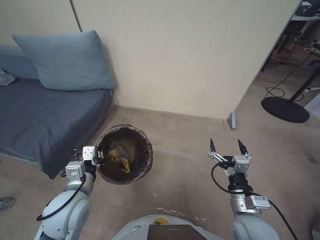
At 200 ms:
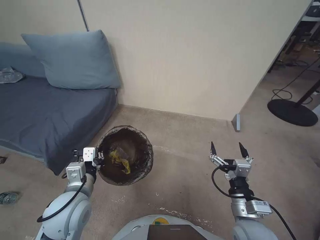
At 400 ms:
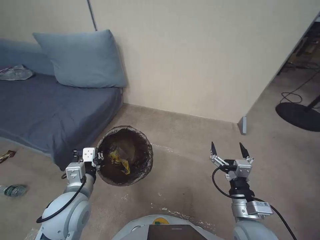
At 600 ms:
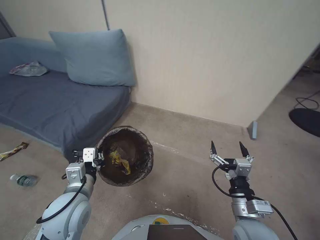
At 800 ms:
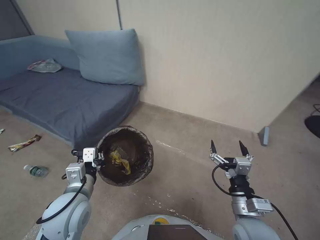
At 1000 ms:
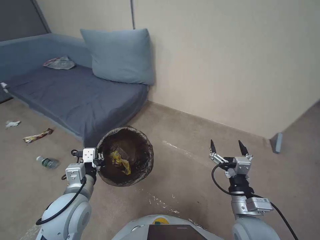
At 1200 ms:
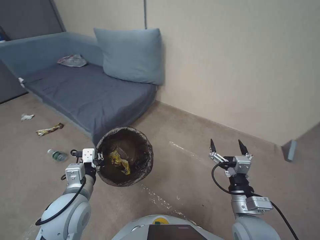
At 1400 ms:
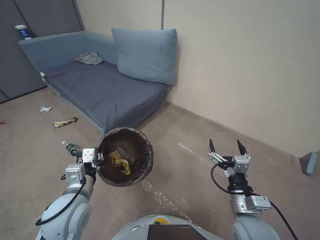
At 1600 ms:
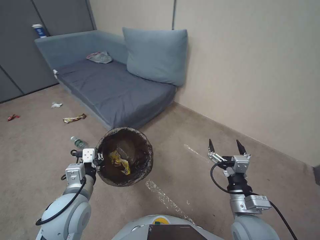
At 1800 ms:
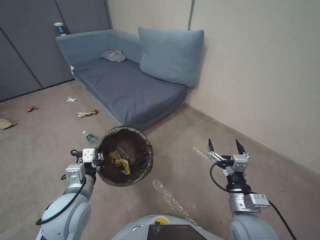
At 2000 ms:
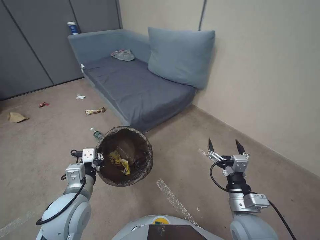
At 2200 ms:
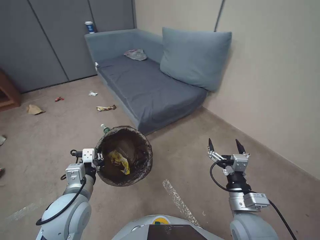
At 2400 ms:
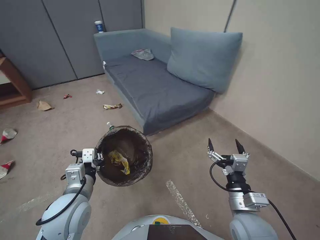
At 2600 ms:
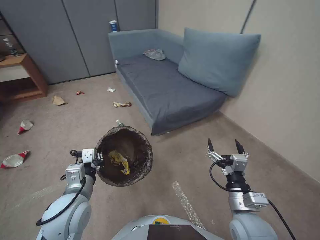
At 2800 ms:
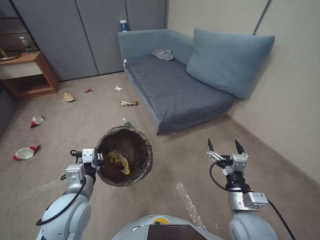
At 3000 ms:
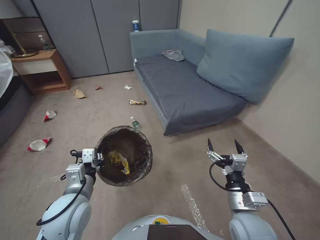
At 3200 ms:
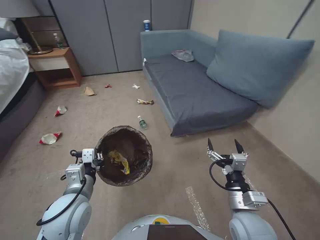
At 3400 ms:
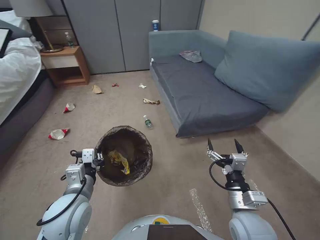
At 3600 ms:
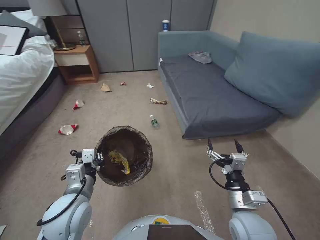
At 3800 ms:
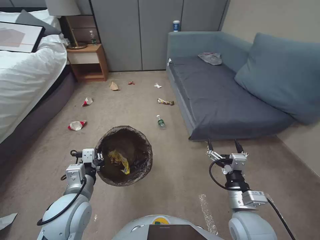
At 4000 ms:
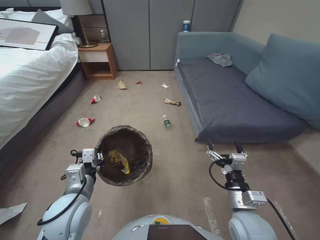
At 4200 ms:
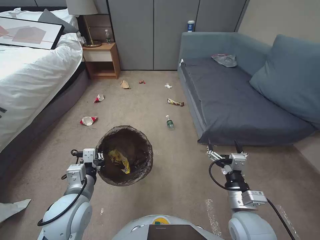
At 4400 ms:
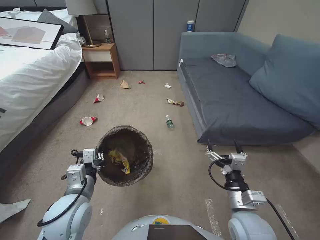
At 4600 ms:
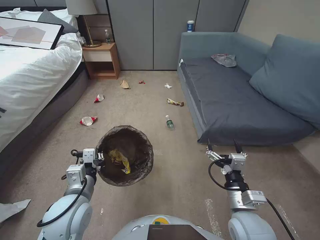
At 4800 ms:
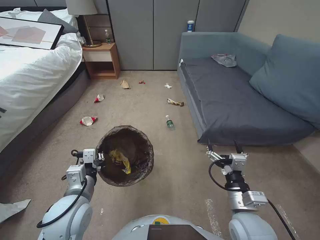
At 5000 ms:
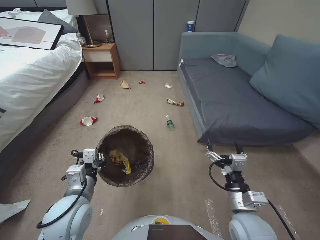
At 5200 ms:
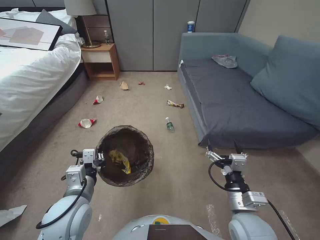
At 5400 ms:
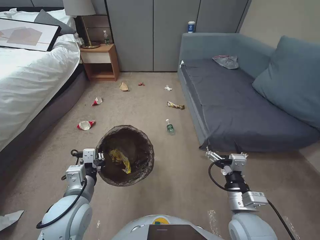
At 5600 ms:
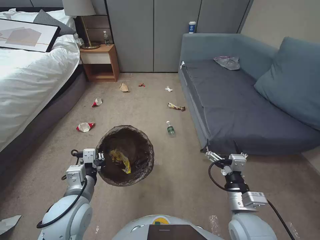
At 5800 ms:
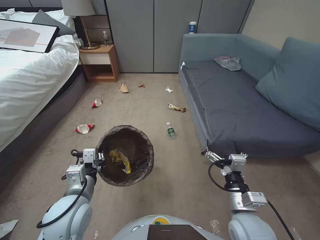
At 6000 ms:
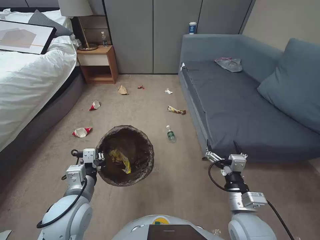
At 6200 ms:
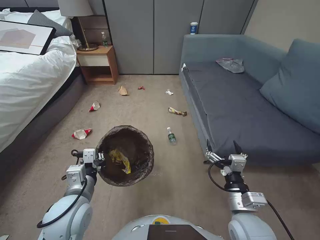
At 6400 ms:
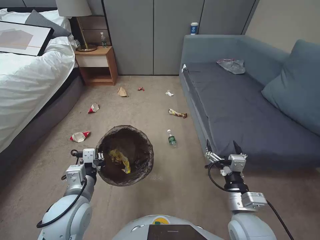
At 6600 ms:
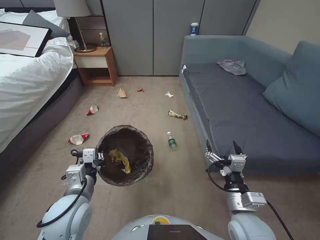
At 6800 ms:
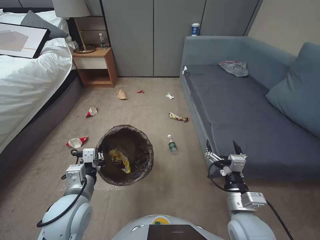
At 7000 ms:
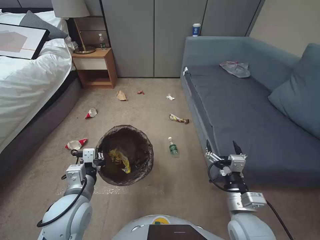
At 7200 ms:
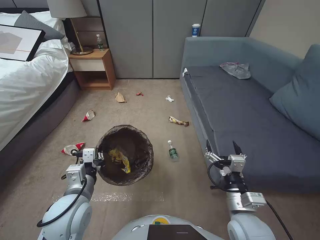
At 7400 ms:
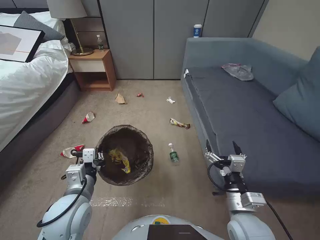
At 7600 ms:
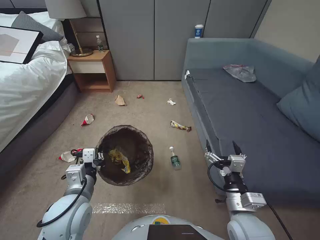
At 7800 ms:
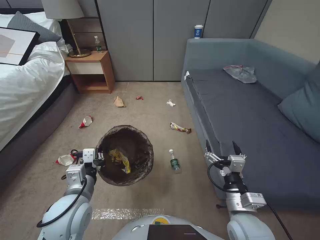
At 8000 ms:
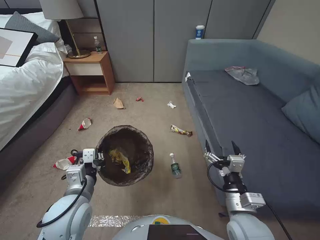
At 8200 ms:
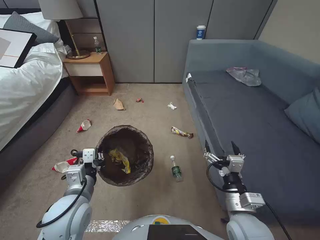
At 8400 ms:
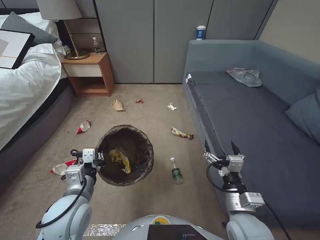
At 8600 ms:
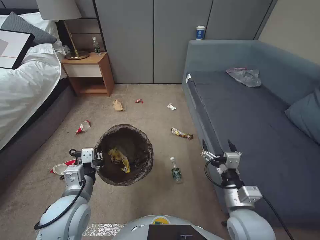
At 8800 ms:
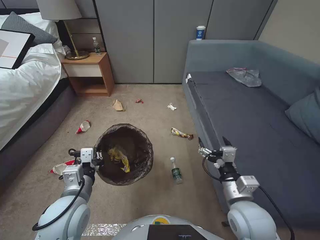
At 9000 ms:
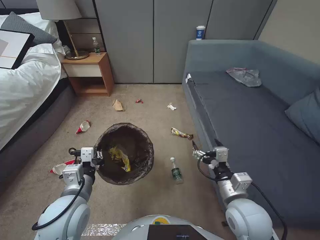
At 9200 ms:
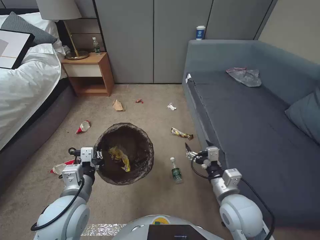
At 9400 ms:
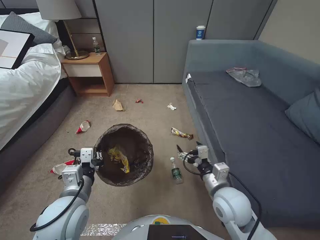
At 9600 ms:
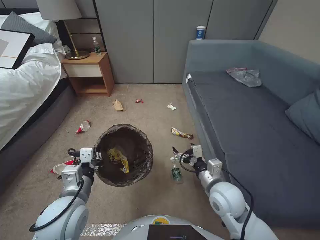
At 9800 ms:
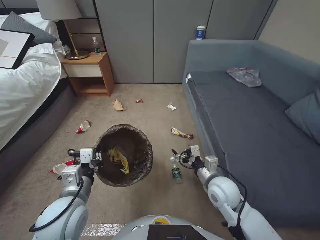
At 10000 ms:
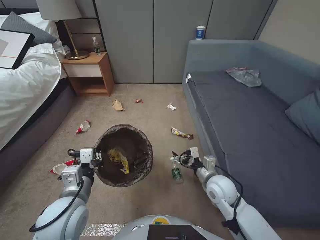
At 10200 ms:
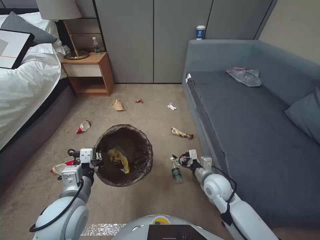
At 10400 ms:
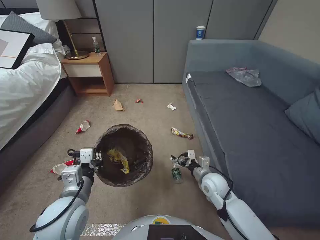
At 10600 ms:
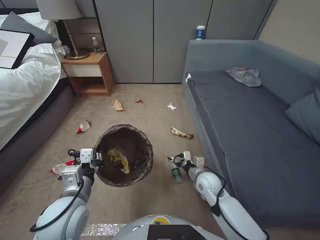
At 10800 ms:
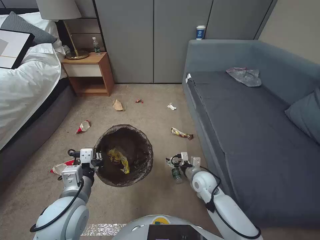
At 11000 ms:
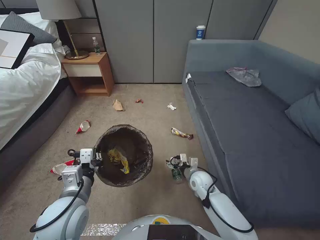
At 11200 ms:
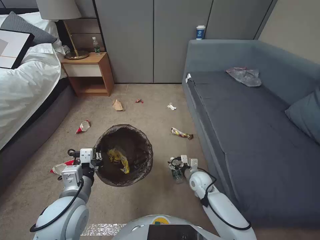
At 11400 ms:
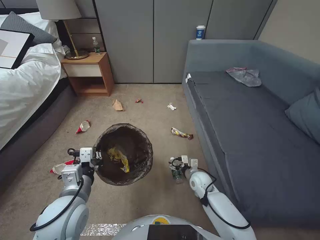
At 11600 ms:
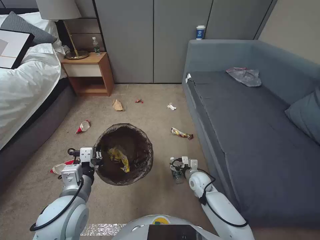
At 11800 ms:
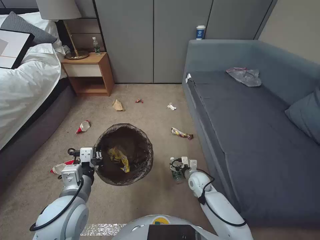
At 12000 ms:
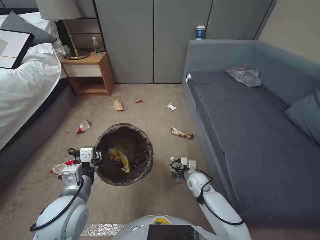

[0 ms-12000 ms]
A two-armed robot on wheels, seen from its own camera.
Task of the whole recording: Pick up the trash bin, then pick up the garbage from the floor and place it into the trash bin.
4400 ms to 6000 ms: Both grippers stay put.
7600 ms to 9000 ms: The grippers make only small movements.
9000 ms to 10400 ms: The right gripper shifts approximately 15 cm forward and downward.
10400 ms to 12000 ms: The right gripper shifts about 10 cm downward.

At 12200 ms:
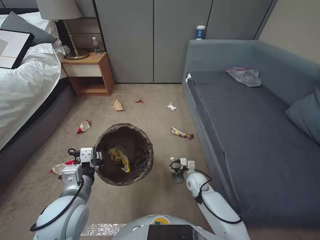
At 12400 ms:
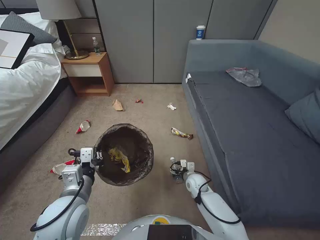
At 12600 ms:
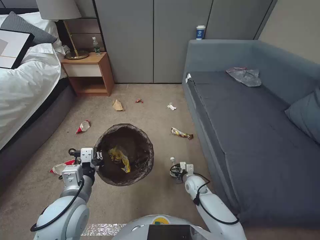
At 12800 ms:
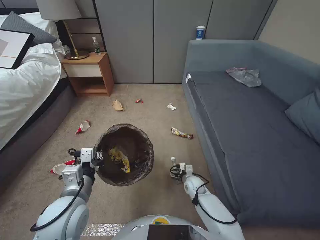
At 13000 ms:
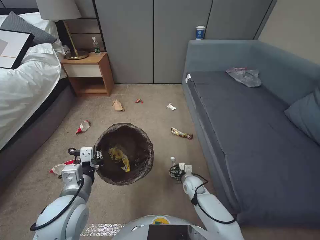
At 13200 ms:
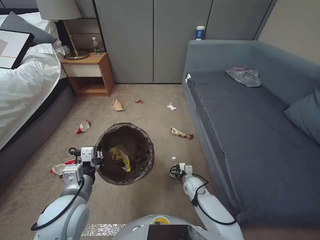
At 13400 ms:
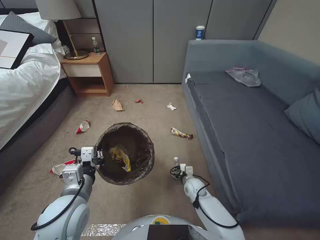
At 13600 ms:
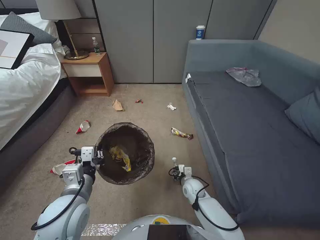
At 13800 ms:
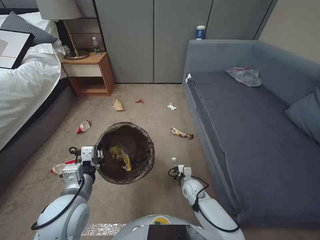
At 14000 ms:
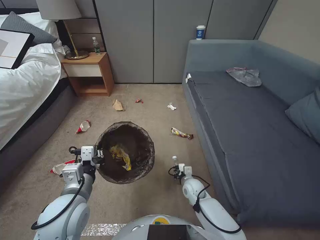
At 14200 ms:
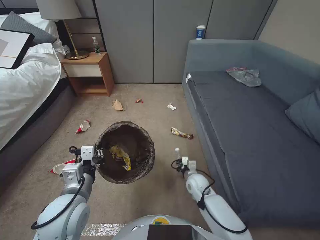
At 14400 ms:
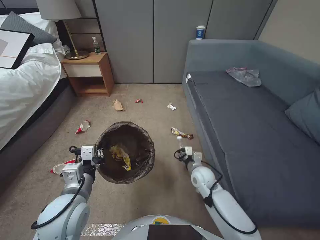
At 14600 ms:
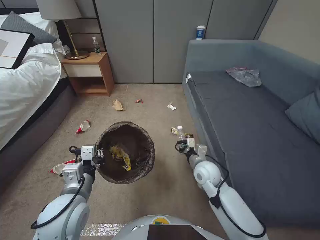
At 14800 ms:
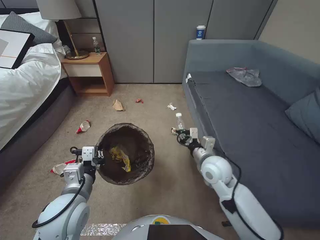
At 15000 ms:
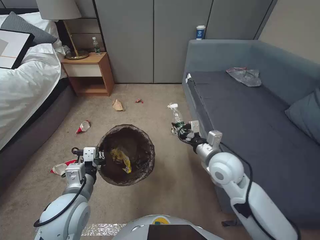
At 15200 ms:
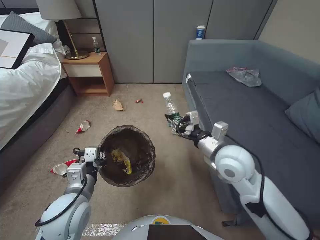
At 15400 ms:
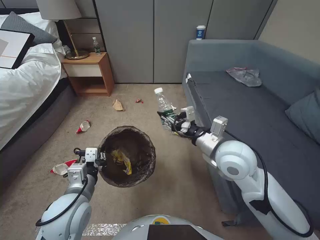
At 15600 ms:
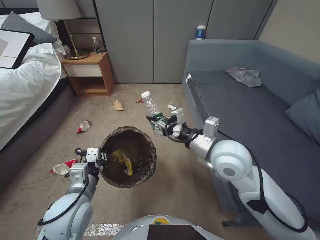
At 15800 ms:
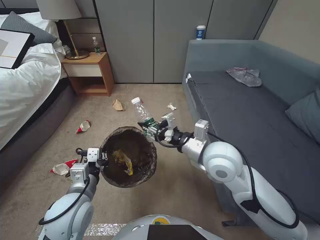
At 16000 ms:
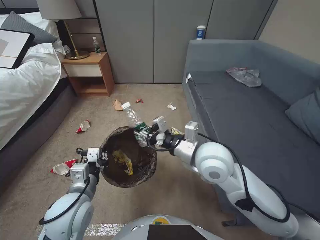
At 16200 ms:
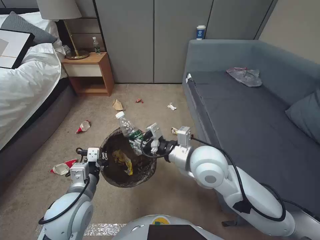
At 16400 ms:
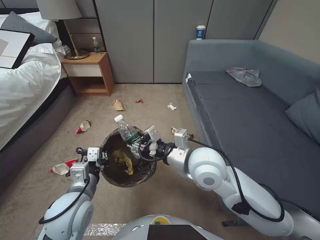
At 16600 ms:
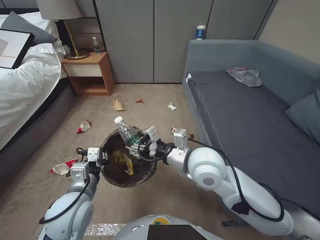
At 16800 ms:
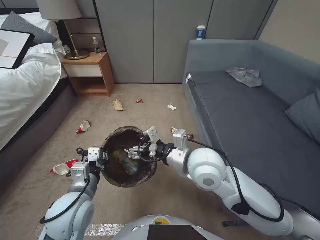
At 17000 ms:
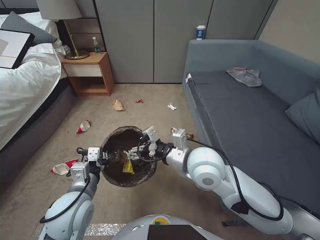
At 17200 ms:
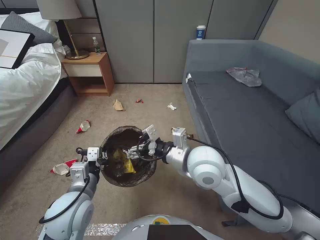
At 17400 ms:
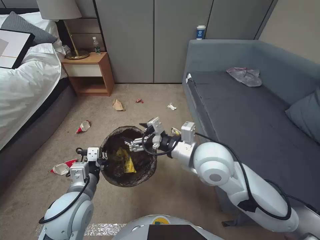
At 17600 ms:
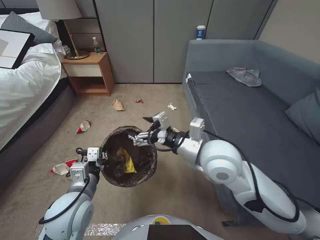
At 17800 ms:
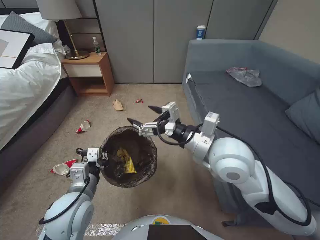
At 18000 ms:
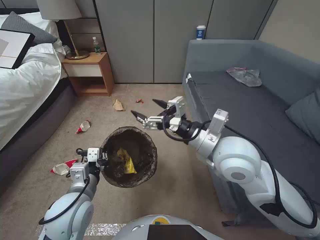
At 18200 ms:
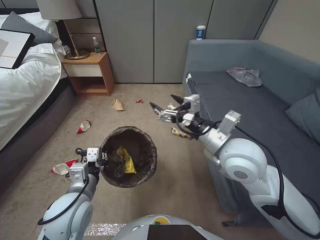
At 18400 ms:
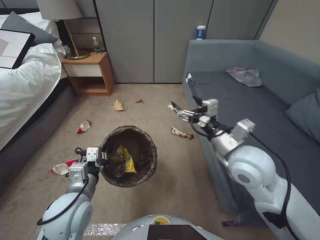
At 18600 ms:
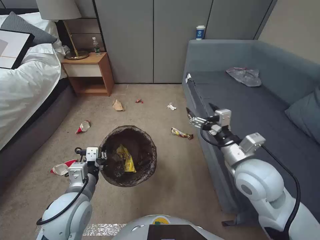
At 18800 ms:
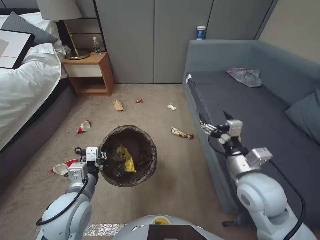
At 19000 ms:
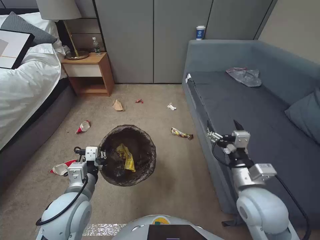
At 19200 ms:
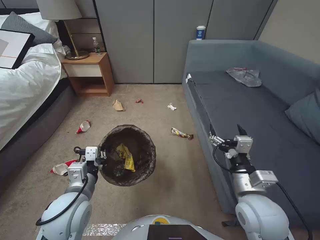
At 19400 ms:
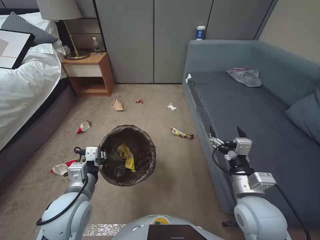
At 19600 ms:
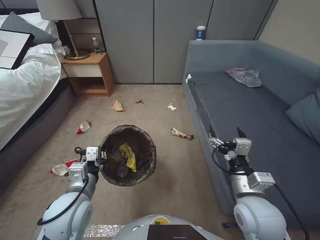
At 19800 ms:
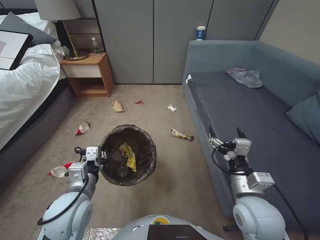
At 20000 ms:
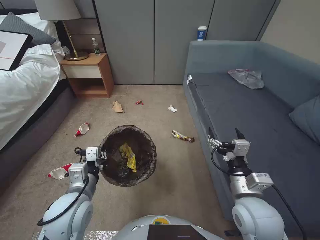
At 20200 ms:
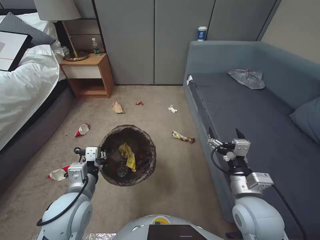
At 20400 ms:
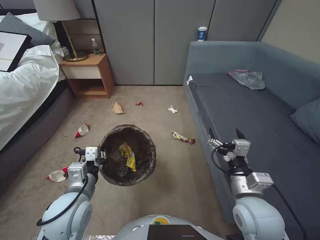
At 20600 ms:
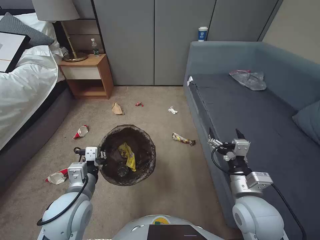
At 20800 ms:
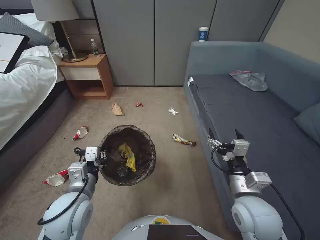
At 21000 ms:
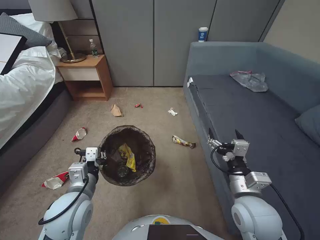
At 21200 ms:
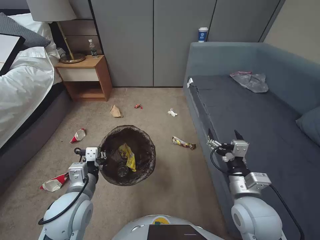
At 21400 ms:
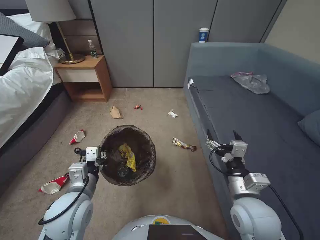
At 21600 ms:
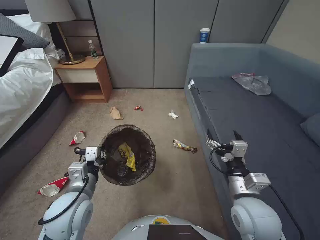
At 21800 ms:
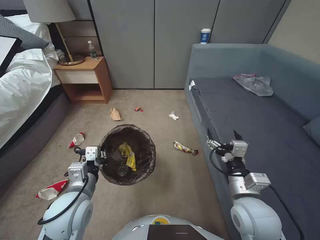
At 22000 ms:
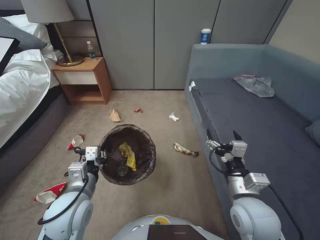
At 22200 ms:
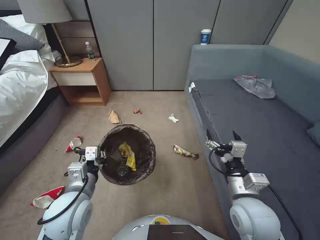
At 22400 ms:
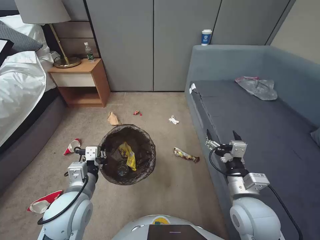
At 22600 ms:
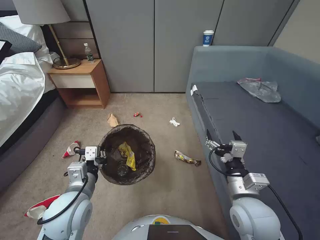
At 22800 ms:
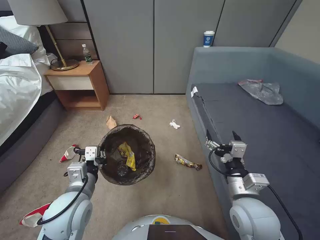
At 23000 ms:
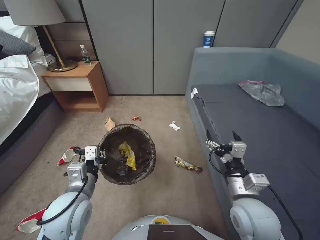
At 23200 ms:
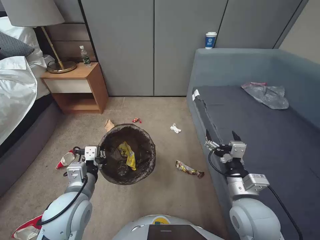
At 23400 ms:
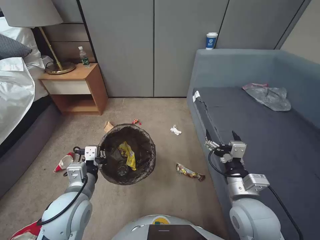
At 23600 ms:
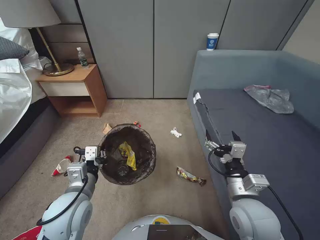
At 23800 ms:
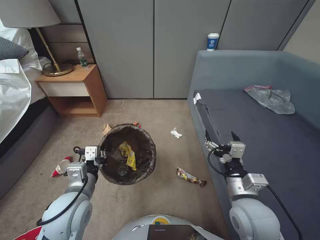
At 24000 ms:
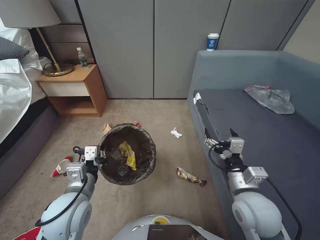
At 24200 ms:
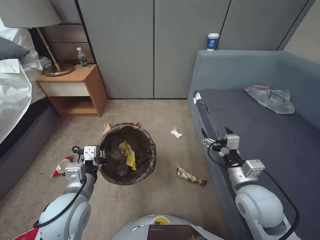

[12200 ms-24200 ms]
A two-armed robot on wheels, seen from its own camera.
Task of the whole recording: Pick up the trash bin, then pick up the garbage from the floor and place it into the trash bin.
12200 ms to 13800 ms: The right gripper closes.
13800 ms to 15200 ms: The right gripper heads upward, covering roughly 35 cm.
15200 ms to 16600 ms: The right gripper is displaced to the left by some 10 cm.
16600 ms to 18200 ms: The right gripper is displaced to the right and upward by some 10 cm, and opens.
18200 ms to 19800 ms: The right gripper goes about 15 cm downward, backward and to the right.
19800 ms to 22600 ms: Neither gripper changes place.
